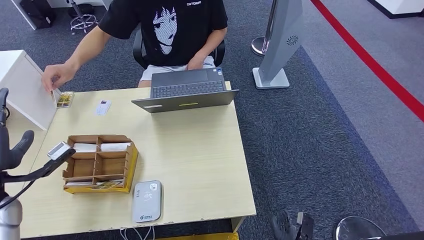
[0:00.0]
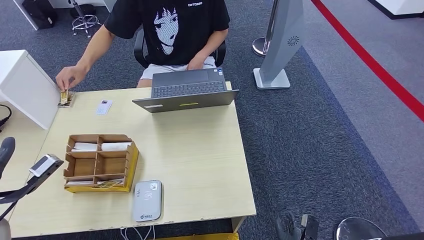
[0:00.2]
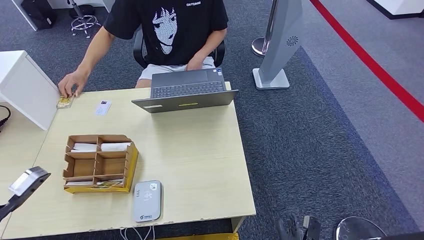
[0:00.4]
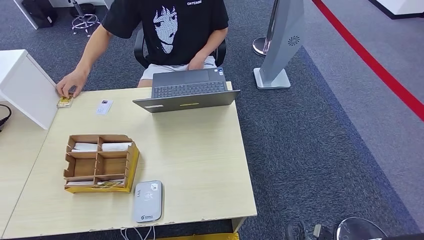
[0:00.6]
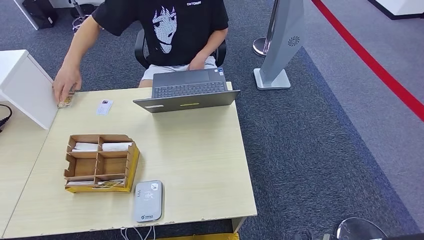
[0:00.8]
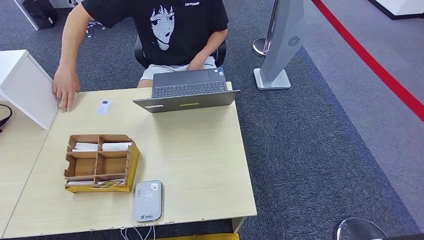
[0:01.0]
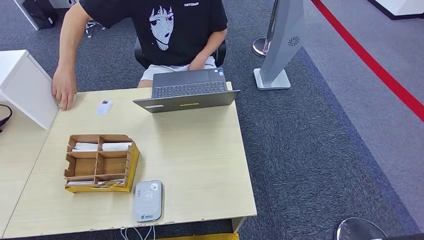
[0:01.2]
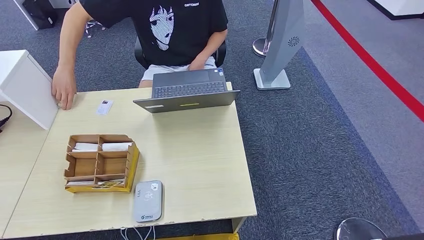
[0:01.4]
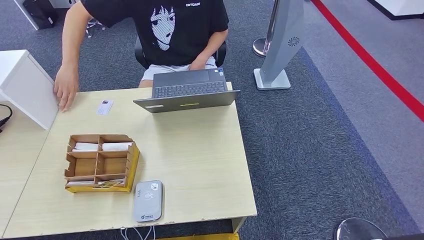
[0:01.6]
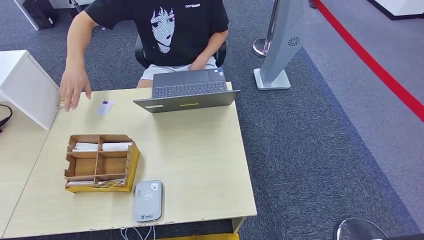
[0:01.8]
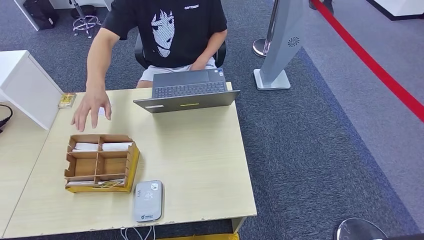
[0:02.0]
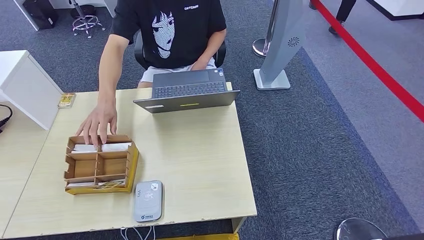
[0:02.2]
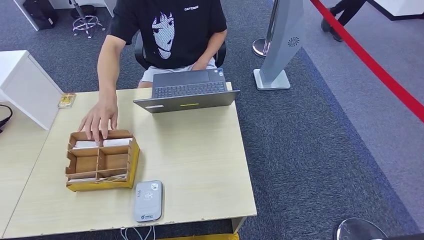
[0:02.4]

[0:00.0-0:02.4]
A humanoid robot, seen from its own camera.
Step, 0:00.0 to 0:02.4: Hand the room key to the person.
0:00.0 to 0:01.2: The left hand is displaced backward by approximately 20 cm. Meanwhile the right hand is displaced backward by roughly 5 cm.
0:01.2 to 0:02.4: The left hand shifts about 20 cm downward.
